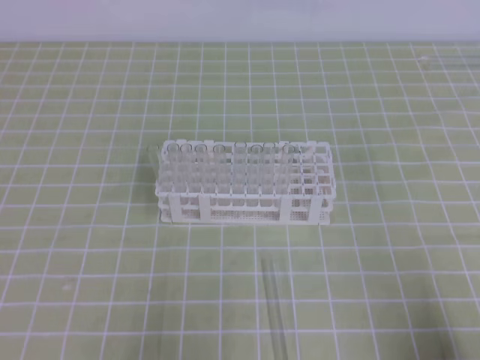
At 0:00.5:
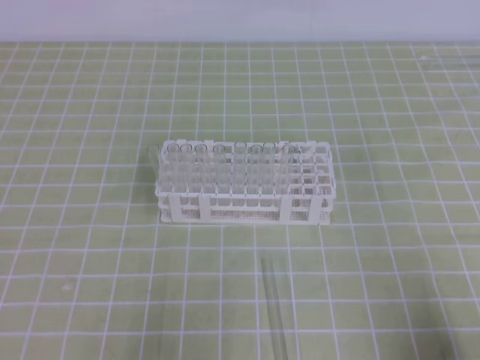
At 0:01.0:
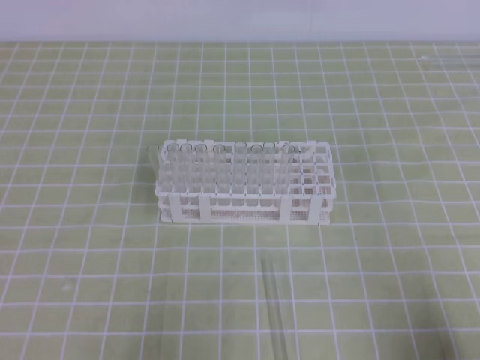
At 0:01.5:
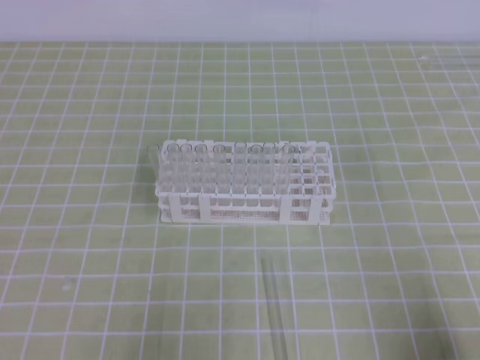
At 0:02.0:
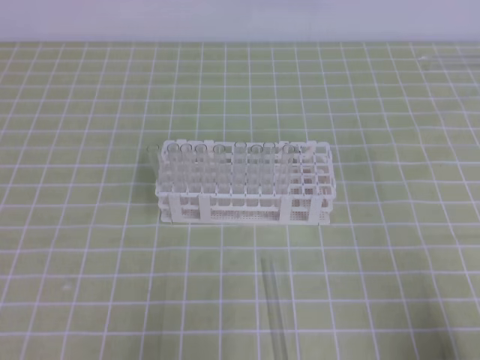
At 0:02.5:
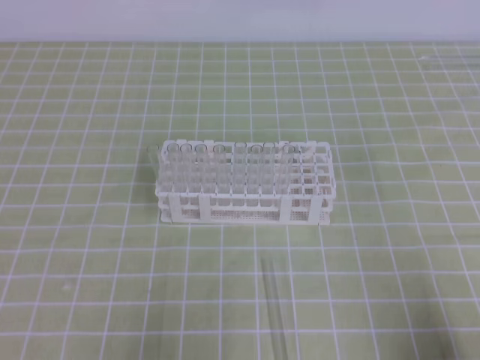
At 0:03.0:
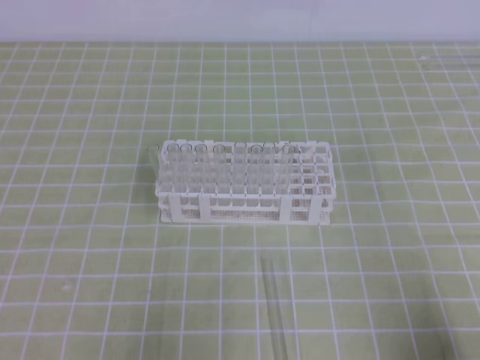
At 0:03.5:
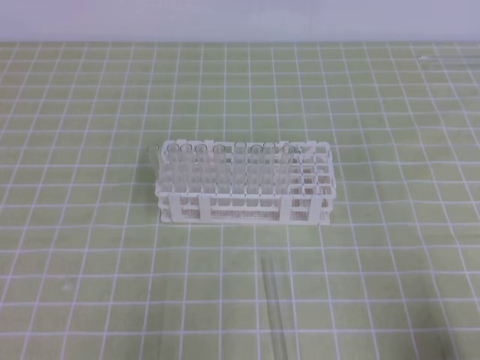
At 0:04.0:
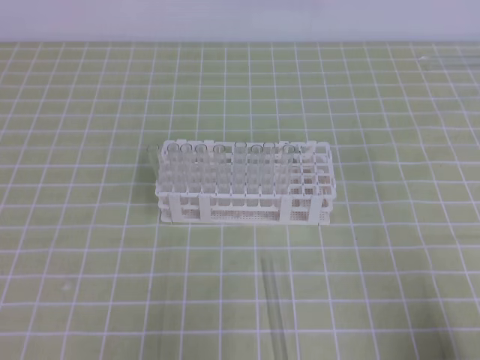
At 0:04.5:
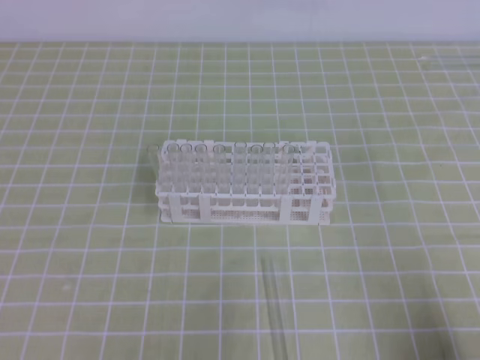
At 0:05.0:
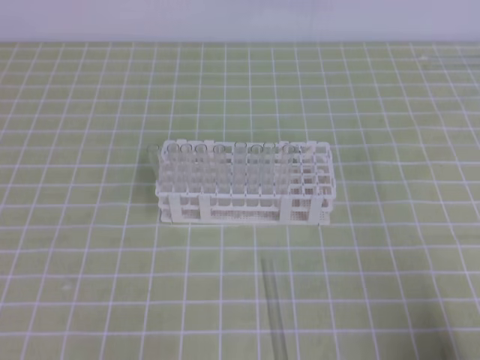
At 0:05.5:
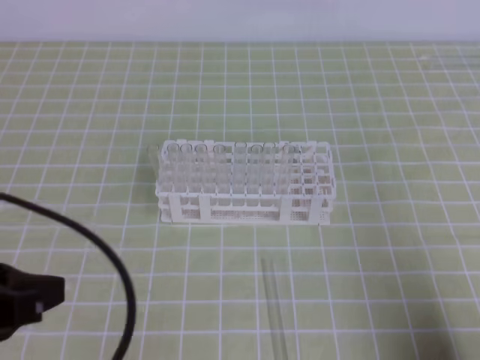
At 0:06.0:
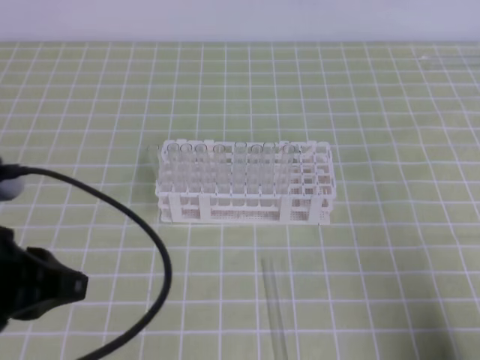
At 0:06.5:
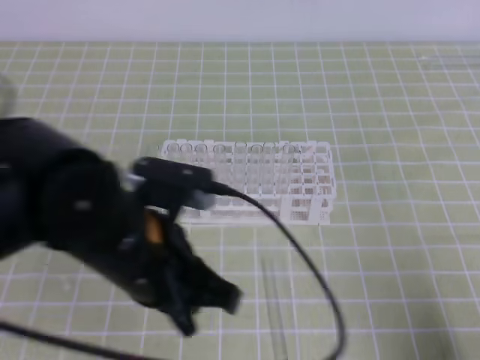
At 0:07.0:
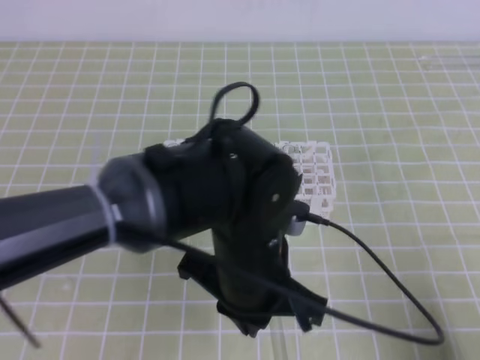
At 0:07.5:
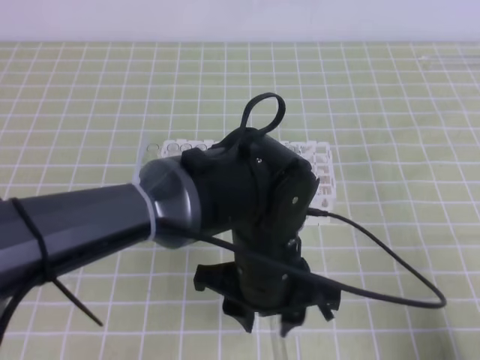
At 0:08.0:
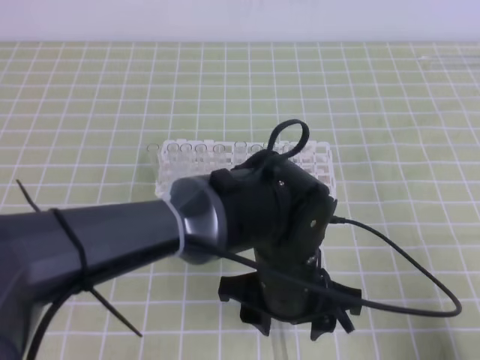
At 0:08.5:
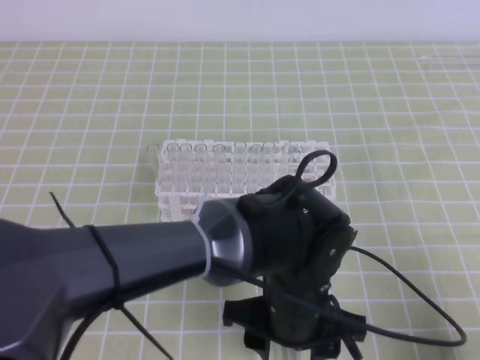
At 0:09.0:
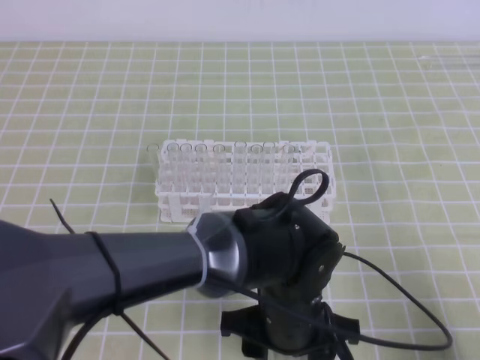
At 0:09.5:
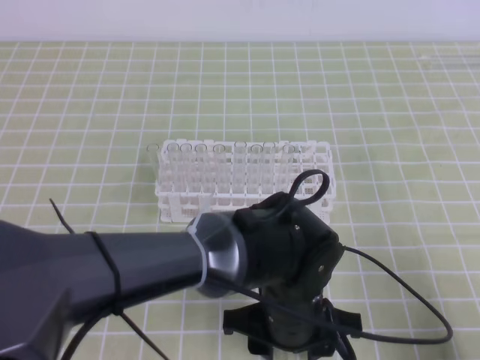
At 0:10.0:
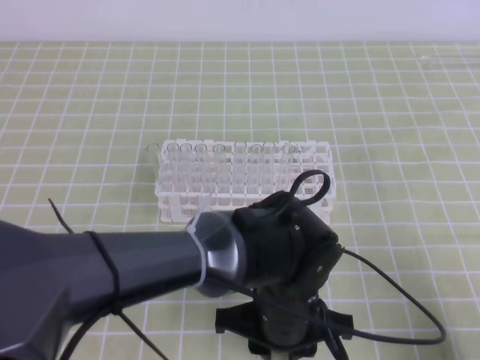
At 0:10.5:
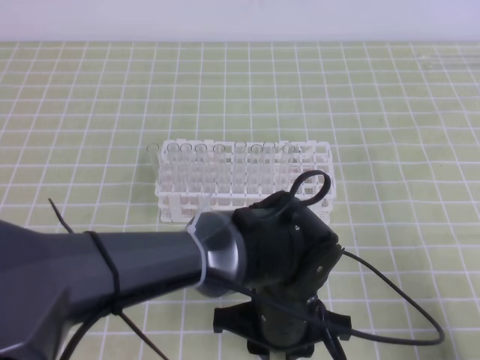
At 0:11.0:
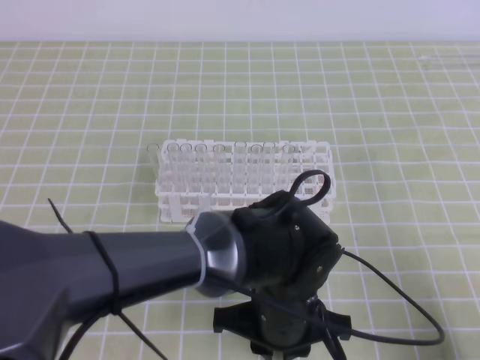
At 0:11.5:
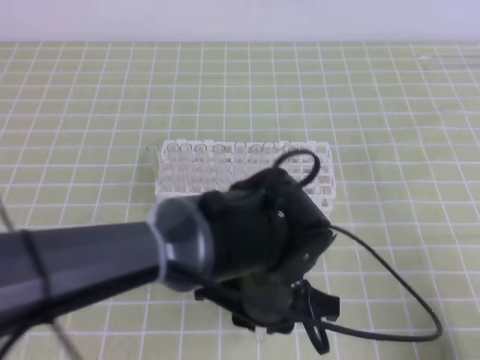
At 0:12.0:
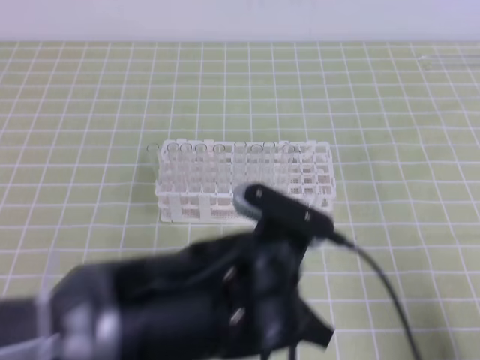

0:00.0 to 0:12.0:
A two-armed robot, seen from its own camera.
0:00.0 to 0:02.0: Neither gripper changes place.
0:04.0 to 0:06.0: The left gripper heads upward, forward and to the right, covering about 15 cm.
0:06.0 to 0:08.0: The left gripper shifts roughly 25 cm to the right, and opens.
0:08.0 to 0:10.0: The left gripper closes its fingers.
0:10.0 to 0:12.0: The left gripper moves upward, some 10 cm.

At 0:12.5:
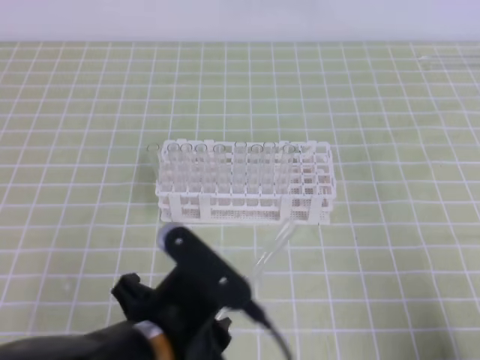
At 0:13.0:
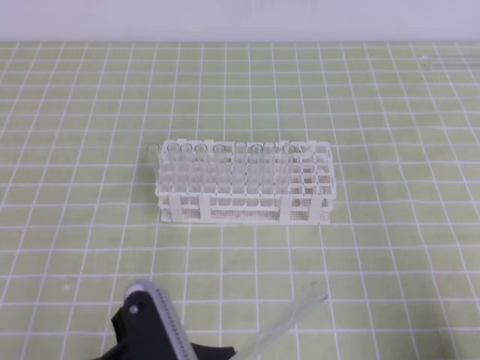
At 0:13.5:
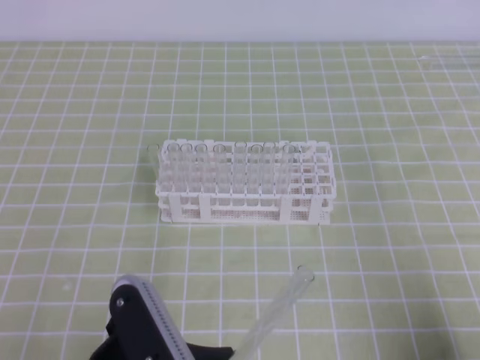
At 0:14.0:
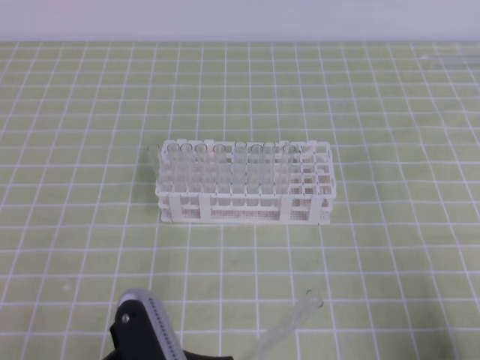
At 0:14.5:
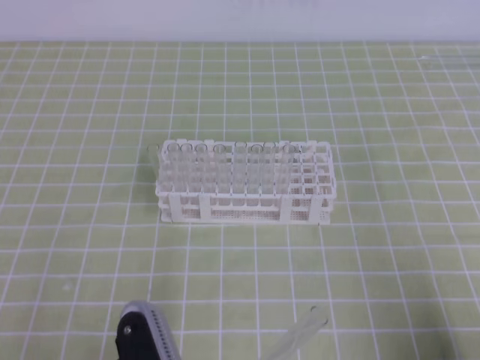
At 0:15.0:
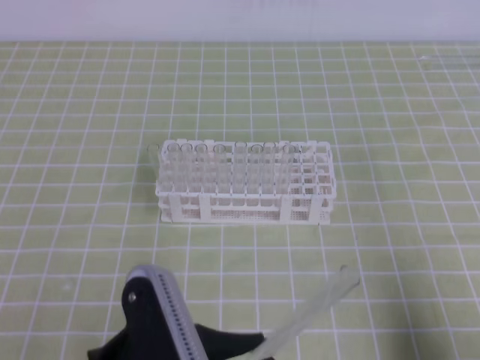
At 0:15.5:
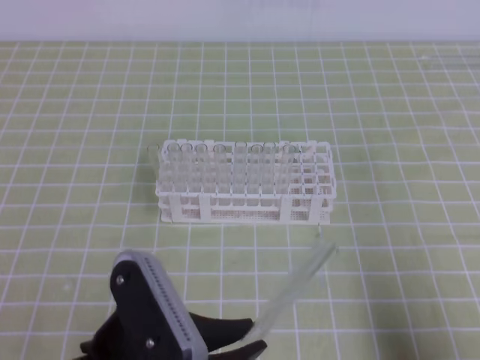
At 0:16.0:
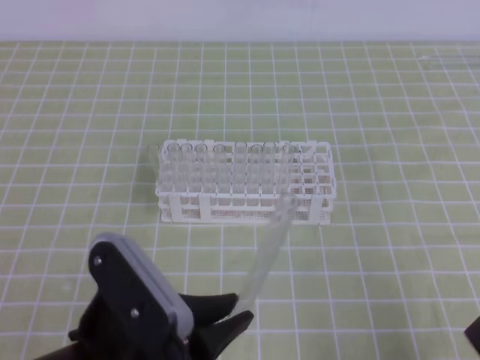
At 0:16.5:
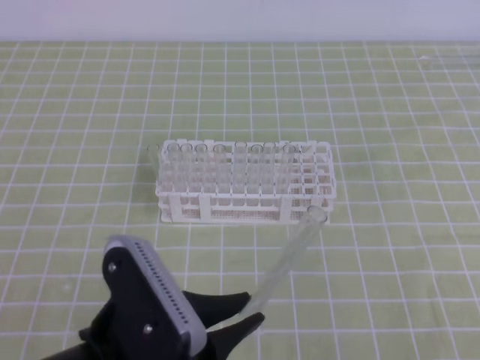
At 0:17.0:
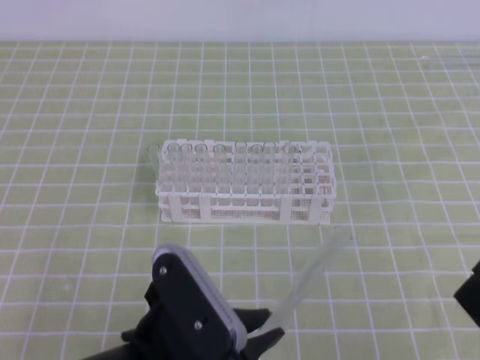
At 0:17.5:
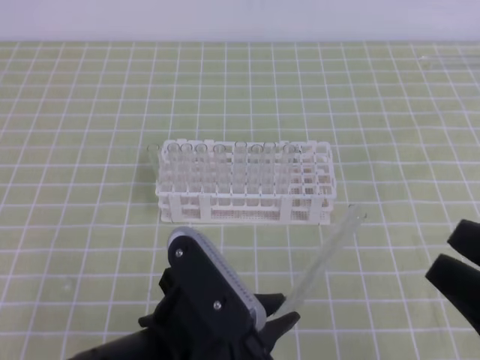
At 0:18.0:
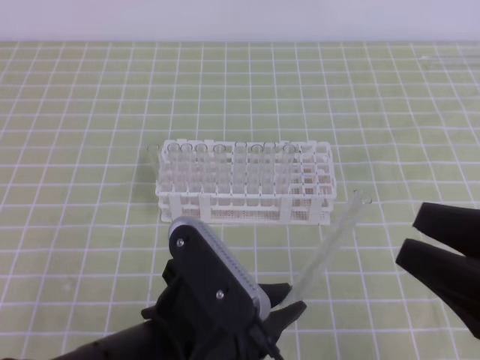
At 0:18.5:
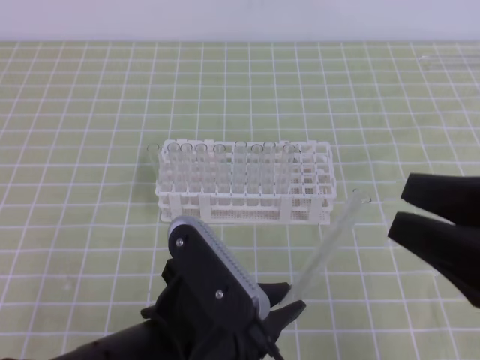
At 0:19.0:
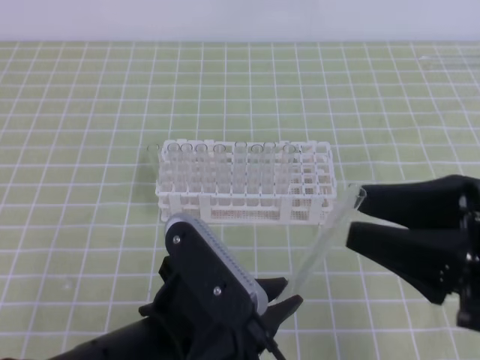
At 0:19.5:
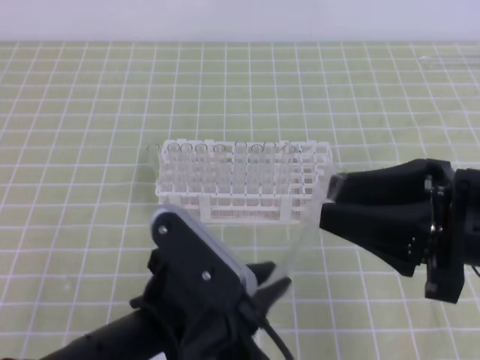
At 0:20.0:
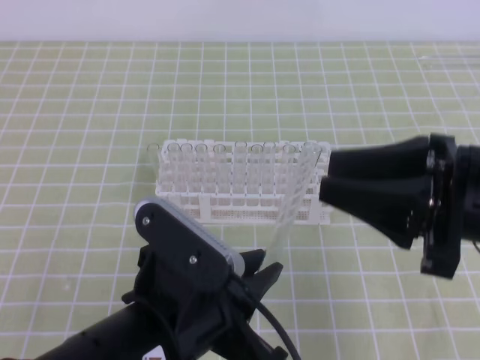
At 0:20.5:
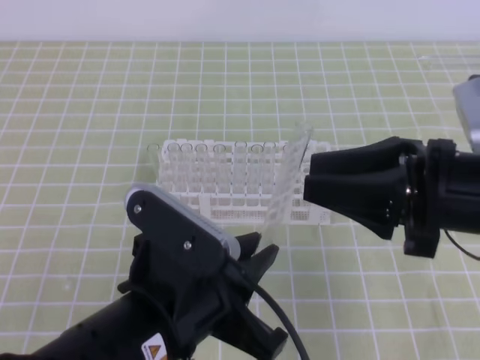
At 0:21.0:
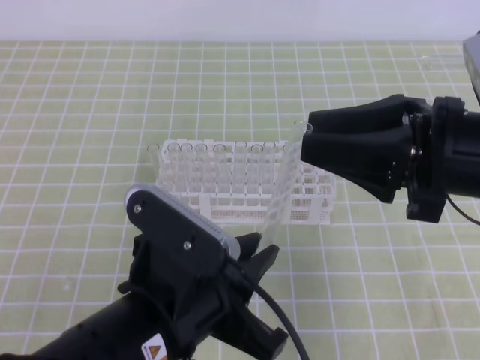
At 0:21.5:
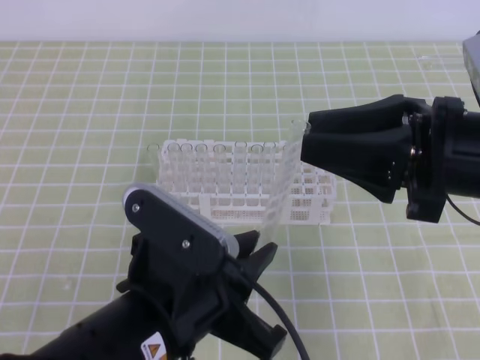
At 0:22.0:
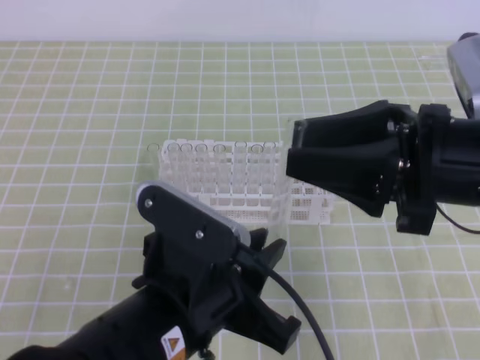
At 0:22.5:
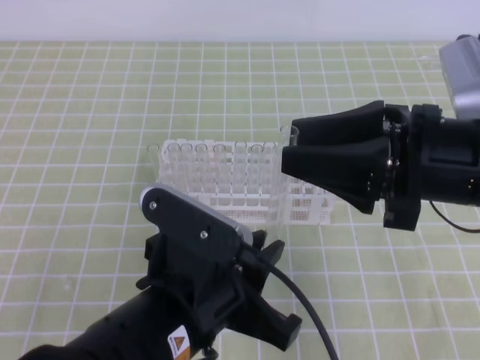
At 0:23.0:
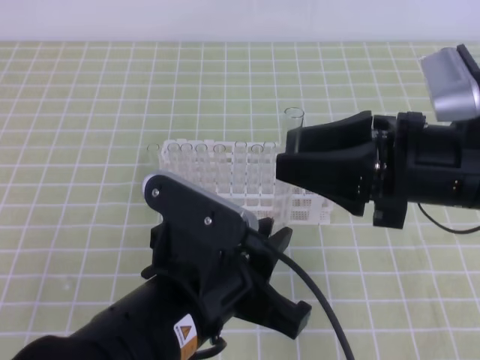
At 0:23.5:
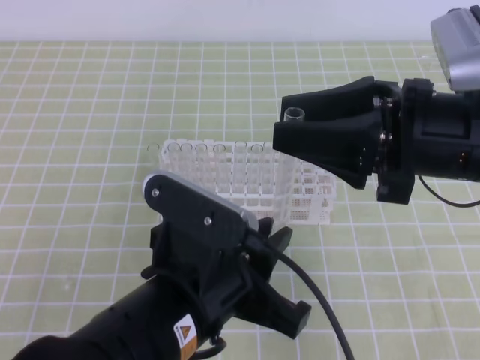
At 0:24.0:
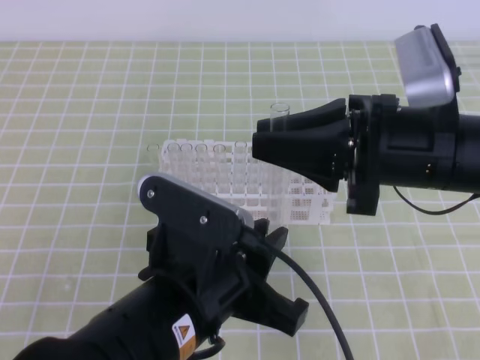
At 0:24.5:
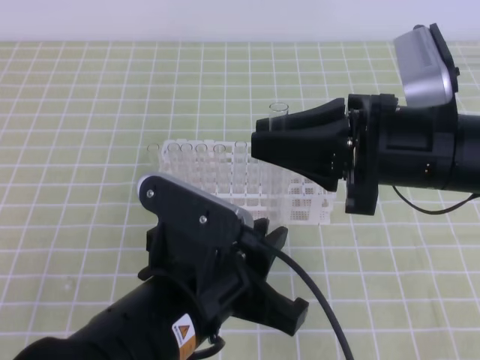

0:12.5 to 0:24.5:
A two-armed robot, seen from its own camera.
0:12.5 to 0:14.5: The left gripper heads to the left, covering approximately 5 cm.
0:14.5 to 0:16.5: The right gripper shifts roughly 10 cm upward and to the left.
0:16.5 to 0:18.5: The right gripper shifts approximately 10 cm forward, and opens its fingers.
0:18.5 to 0:20.5: The right gripper moves forward, some 10 cm.
0:20.5 to 0:22.5: There are only small adjustments of the grippers.
0:22.5 to 0:24.5: The right gripper closes.

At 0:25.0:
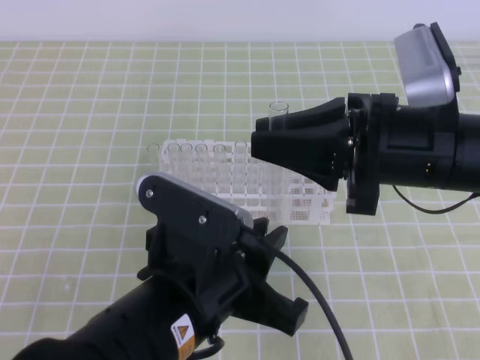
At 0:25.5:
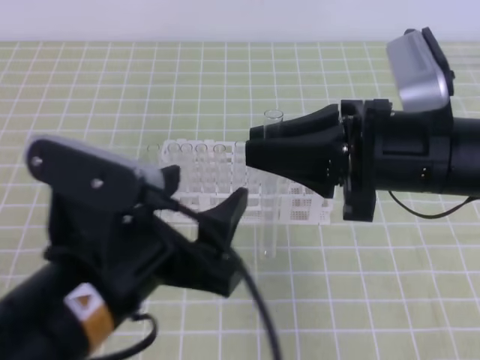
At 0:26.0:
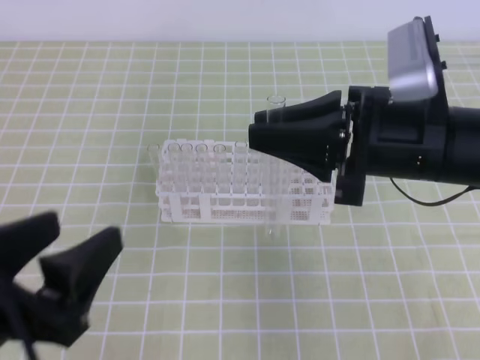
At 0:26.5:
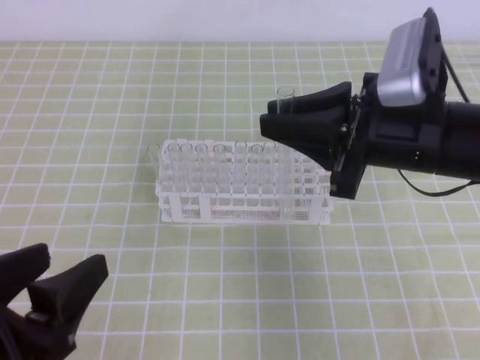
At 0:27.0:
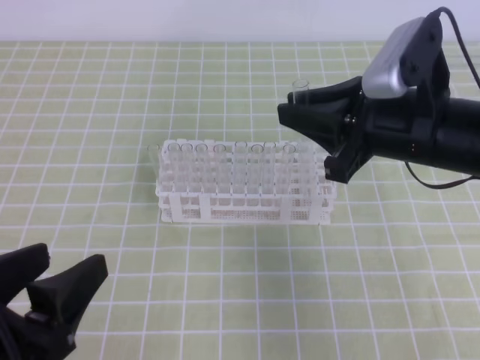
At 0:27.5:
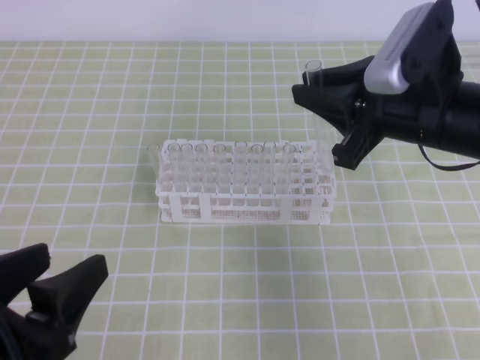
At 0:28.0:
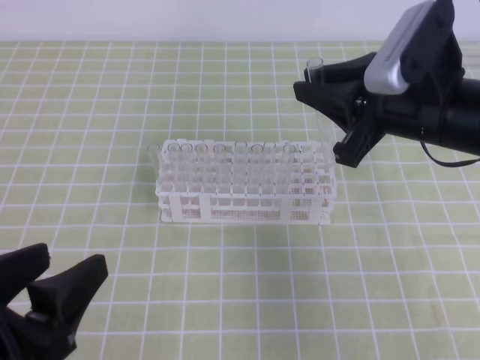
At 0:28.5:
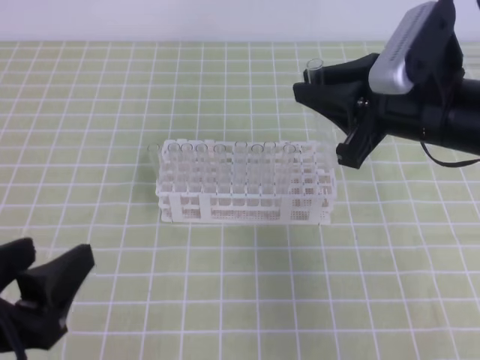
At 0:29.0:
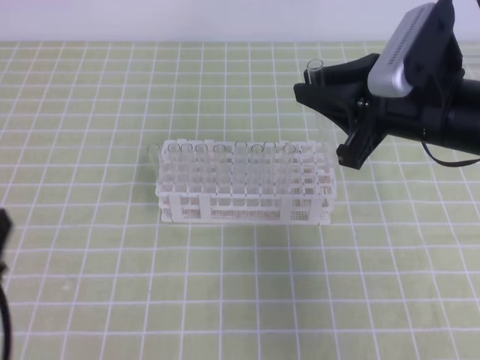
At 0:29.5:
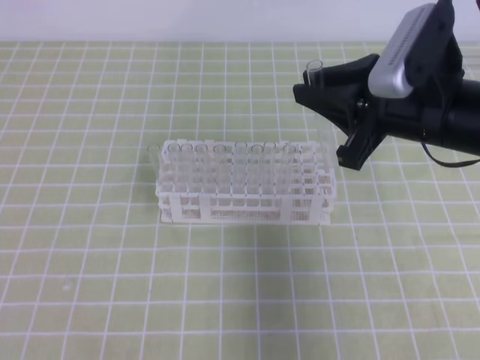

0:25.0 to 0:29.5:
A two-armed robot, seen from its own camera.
0:25.0 to 0:27.0: The left gripper is displaced to the left by about 15 cm, and opens up.
0:27.0 to 0:29.5: The left gripper shifts about 5 cm to the left.
